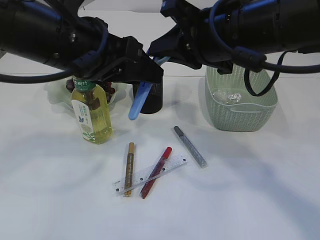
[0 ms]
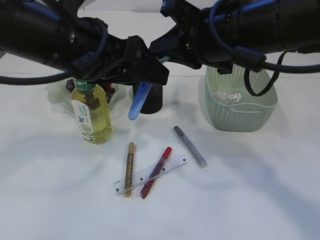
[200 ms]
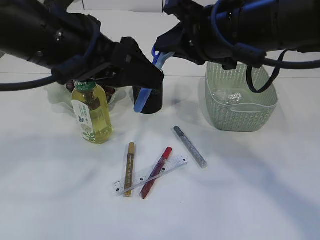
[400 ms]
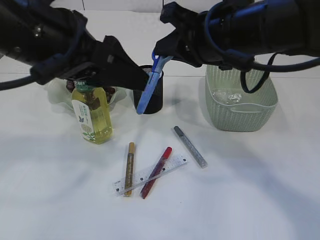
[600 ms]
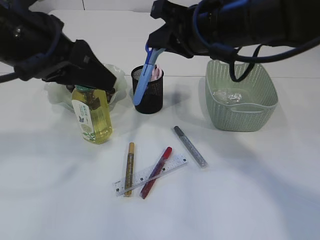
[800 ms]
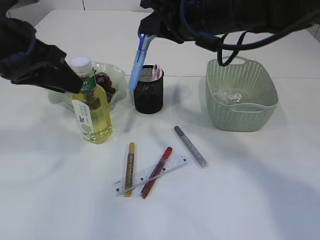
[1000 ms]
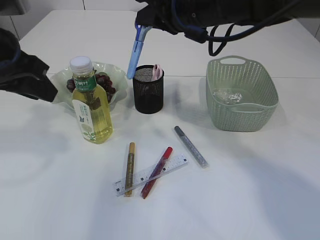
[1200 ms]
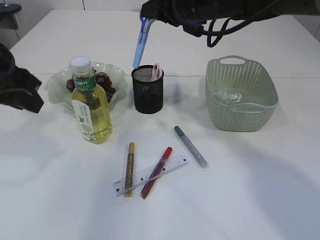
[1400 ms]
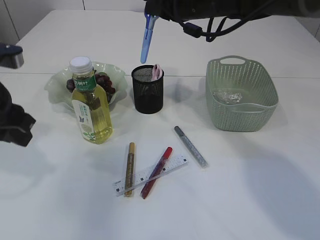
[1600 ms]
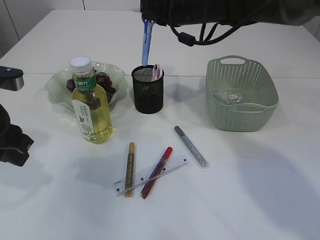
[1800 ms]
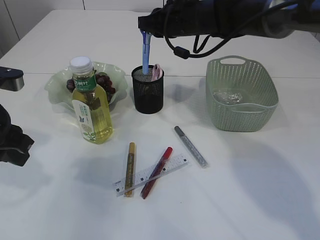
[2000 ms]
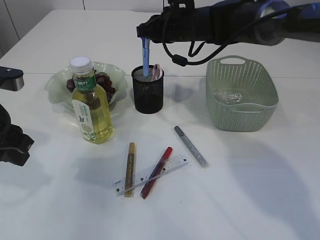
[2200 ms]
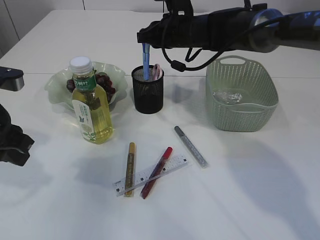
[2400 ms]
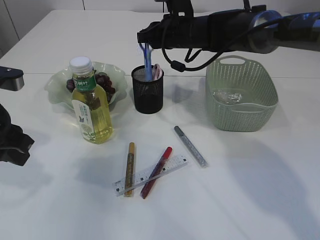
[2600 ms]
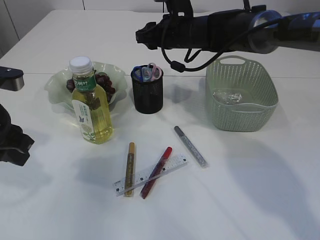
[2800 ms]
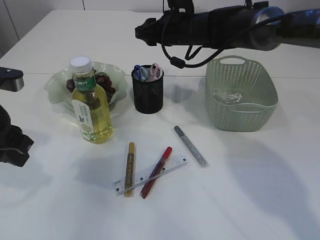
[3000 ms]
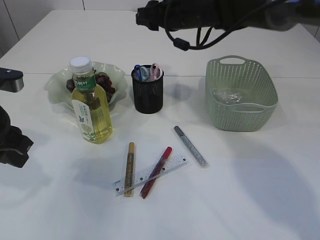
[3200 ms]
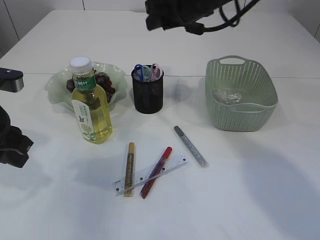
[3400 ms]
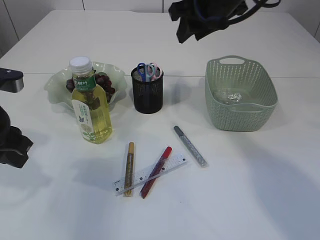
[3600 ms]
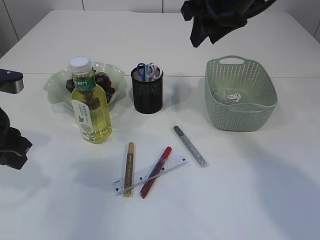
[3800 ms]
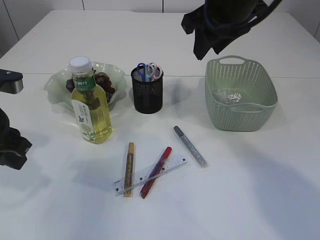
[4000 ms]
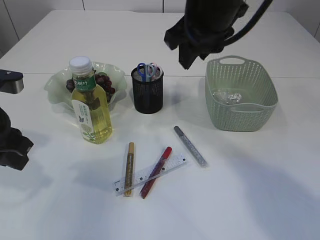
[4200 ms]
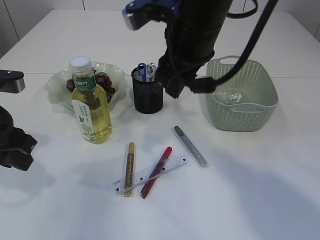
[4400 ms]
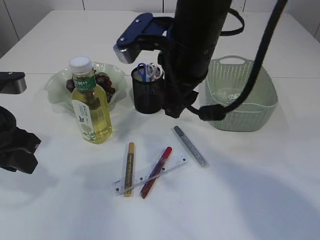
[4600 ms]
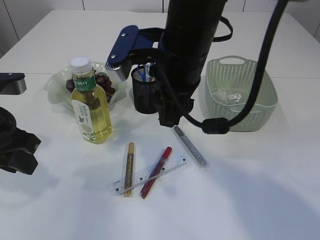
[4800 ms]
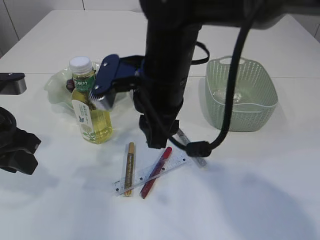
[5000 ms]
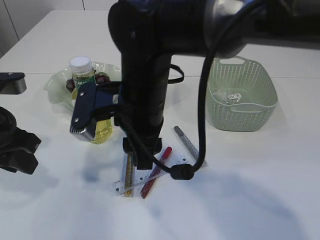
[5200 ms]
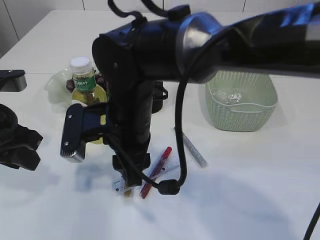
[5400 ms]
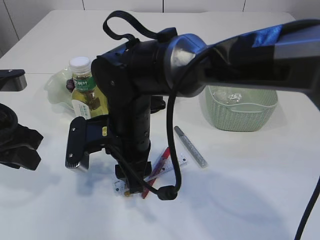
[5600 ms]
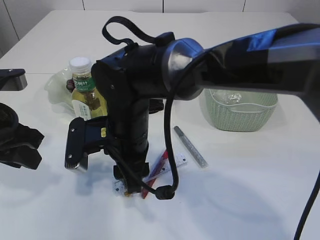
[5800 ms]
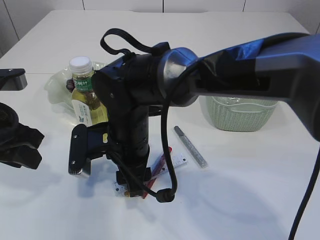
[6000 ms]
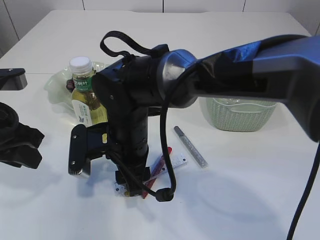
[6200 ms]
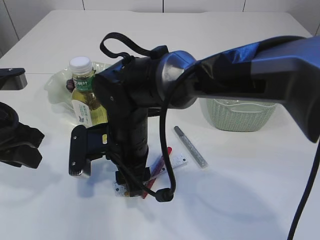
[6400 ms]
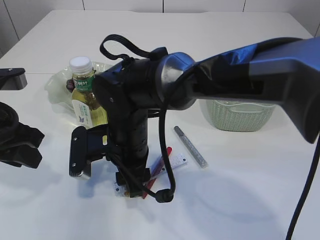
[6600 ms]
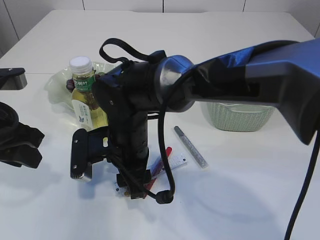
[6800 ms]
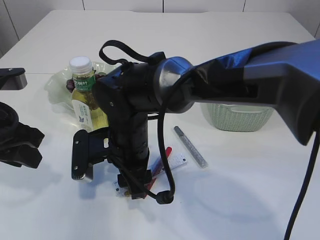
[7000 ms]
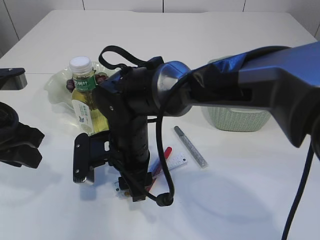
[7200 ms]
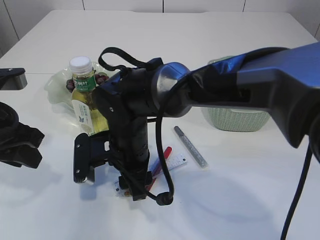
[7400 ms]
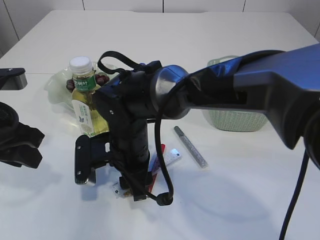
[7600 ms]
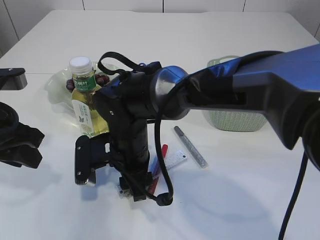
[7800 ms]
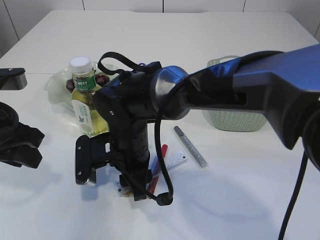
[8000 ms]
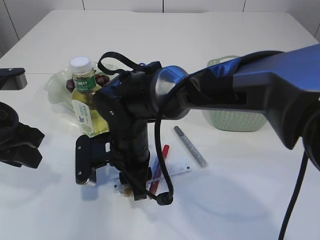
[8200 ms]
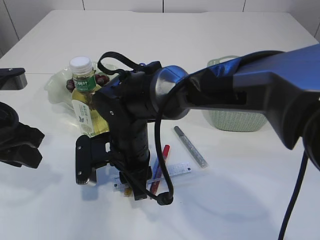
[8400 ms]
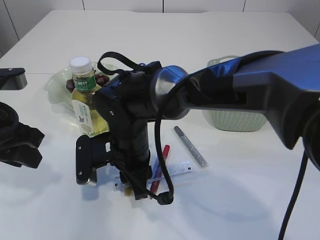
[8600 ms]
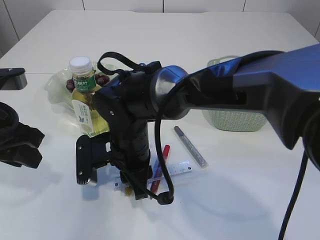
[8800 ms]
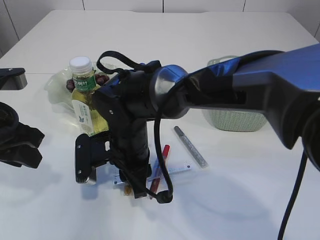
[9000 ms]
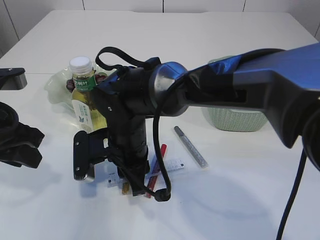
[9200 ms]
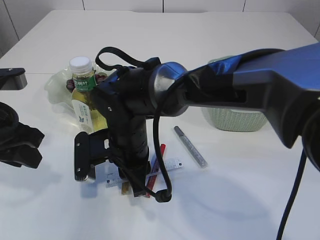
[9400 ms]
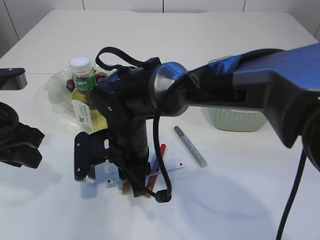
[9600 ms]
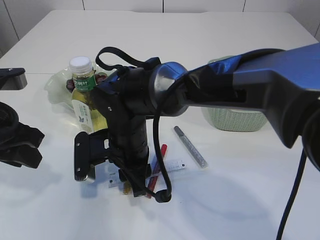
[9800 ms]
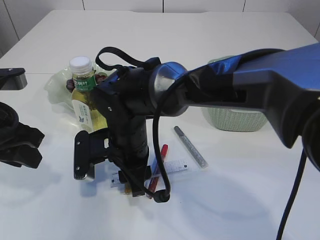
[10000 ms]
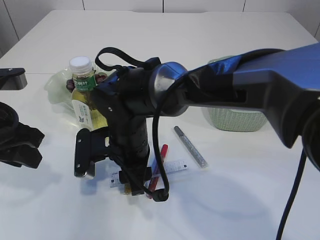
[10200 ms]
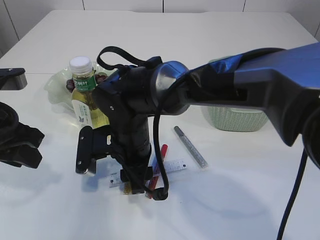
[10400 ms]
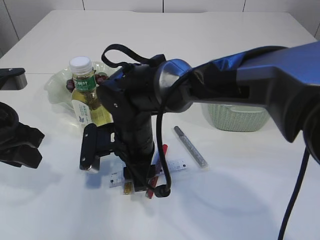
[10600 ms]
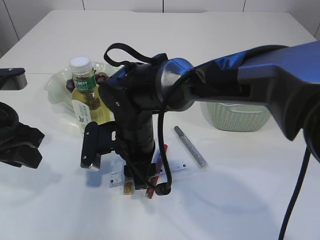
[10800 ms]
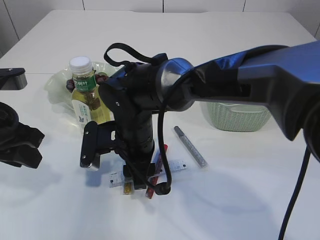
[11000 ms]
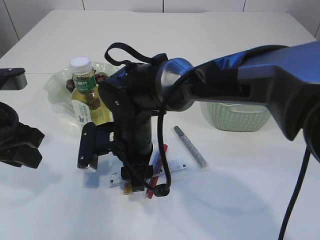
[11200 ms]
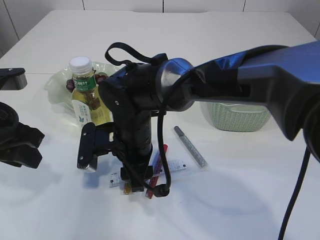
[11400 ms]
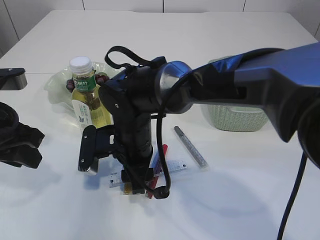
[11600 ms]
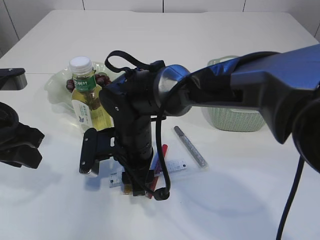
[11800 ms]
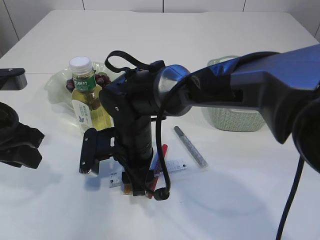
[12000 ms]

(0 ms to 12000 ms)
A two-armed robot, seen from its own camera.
Step, 800 ms - 3200 ms: Place the blue scissors into the pen holder.
0 ms - 1600 ms: The right gripper is displaced forward by about 15 cm; the left gripper moves to the left, some 15 cm, and opens and closes again.
1600 ms - 3000 ms: The right gripper heads downward and forward, covering approximately 10 cm, and opens up.
3000 ms - 4400 ms: The right gripper is displaced backward and upward by approximately 20 cm.
4400 ms - 6000 ms: The right gripper goes roughly 20 cm downward and to the left.
7600 ms - 9000 ms: Both grippers stay put.
9000 ms - 10400 ms: The grippers stay close to where they were, moving slightly.
10400 ms - 12000 ms: Neither gripper changes place.

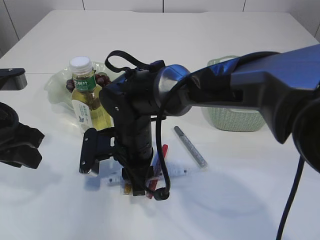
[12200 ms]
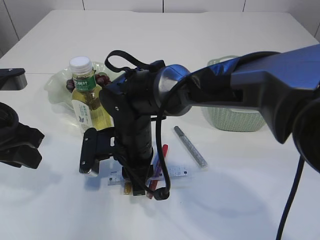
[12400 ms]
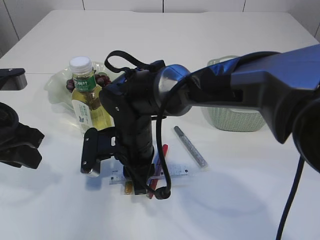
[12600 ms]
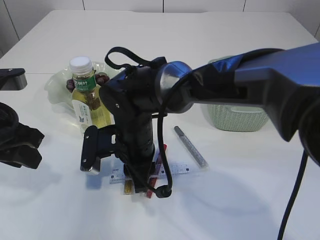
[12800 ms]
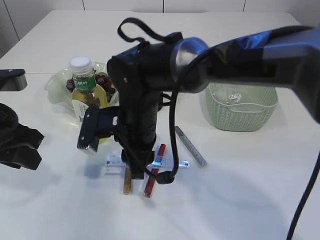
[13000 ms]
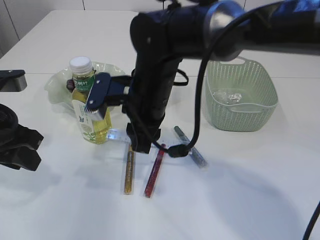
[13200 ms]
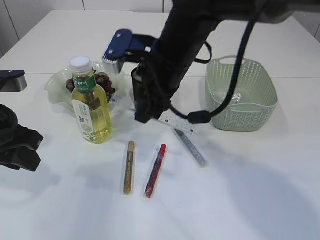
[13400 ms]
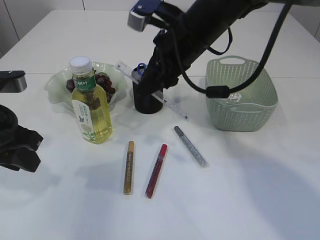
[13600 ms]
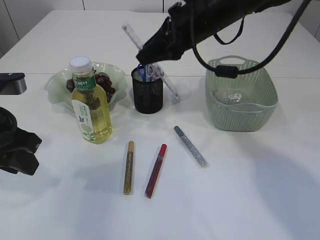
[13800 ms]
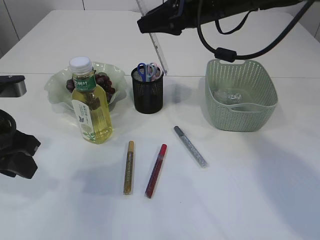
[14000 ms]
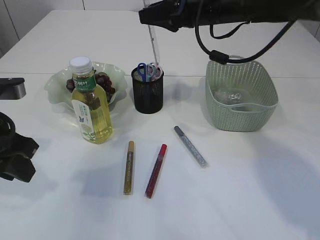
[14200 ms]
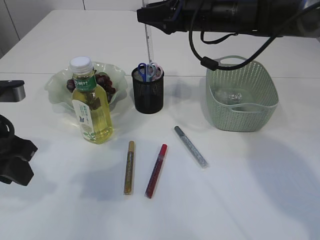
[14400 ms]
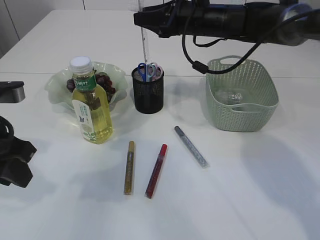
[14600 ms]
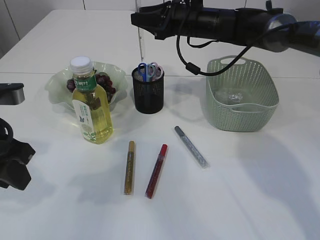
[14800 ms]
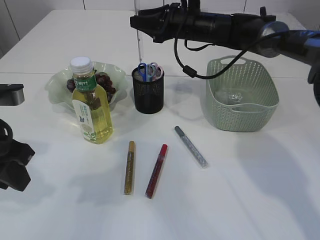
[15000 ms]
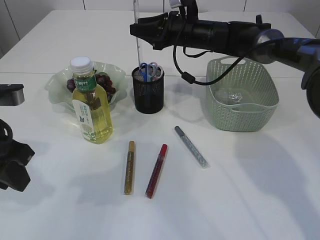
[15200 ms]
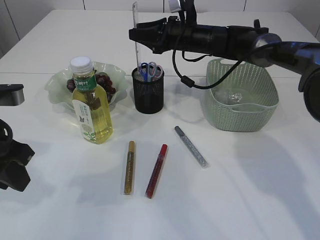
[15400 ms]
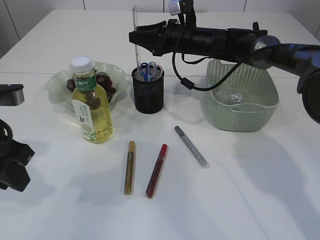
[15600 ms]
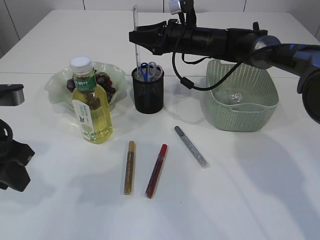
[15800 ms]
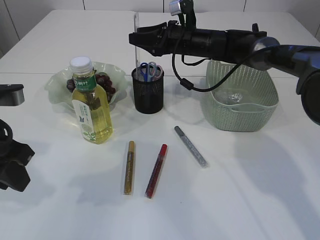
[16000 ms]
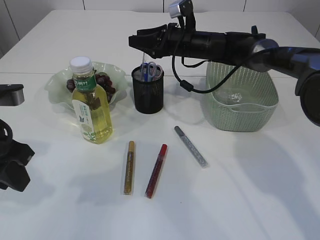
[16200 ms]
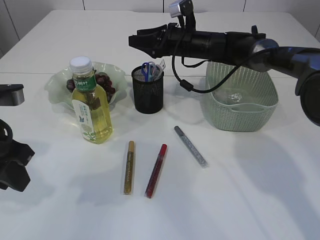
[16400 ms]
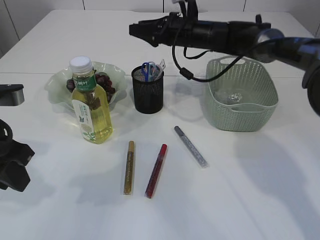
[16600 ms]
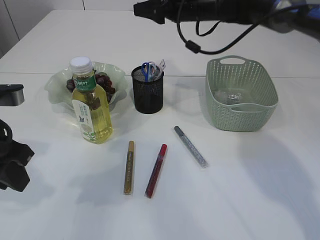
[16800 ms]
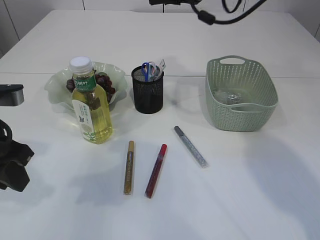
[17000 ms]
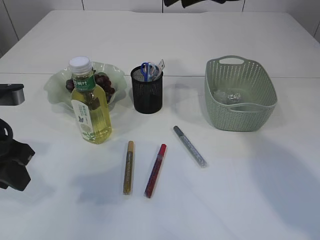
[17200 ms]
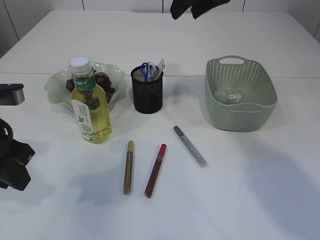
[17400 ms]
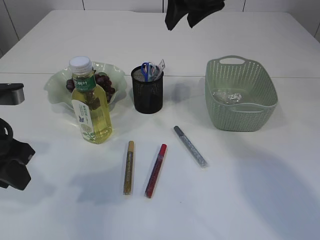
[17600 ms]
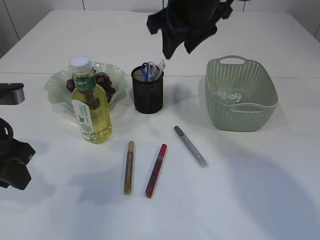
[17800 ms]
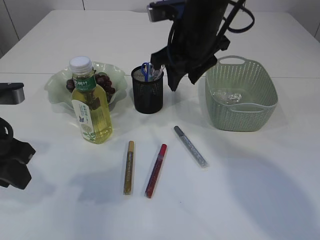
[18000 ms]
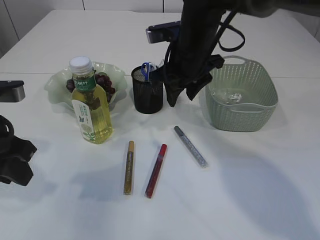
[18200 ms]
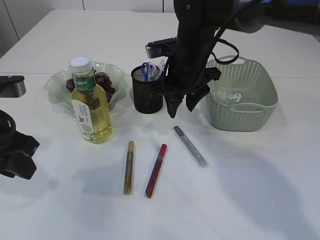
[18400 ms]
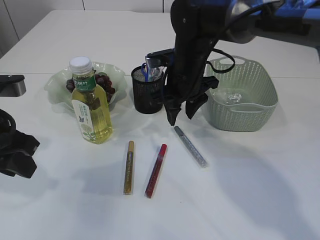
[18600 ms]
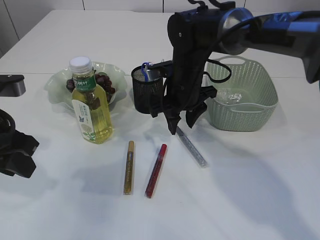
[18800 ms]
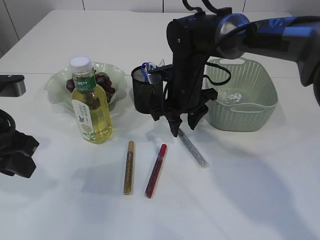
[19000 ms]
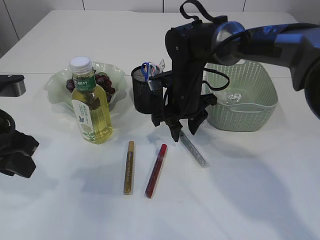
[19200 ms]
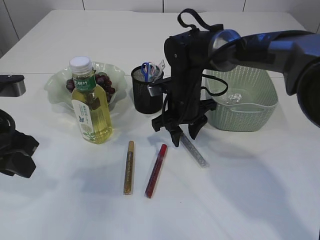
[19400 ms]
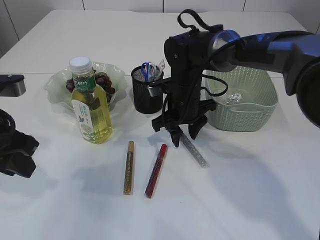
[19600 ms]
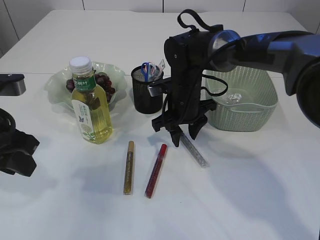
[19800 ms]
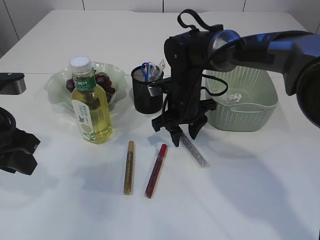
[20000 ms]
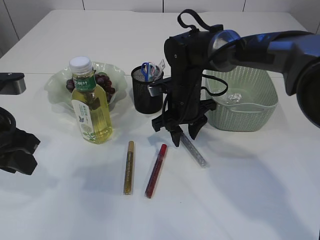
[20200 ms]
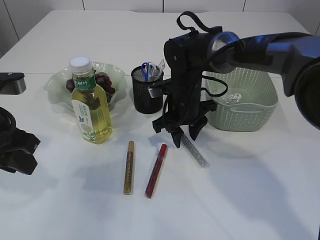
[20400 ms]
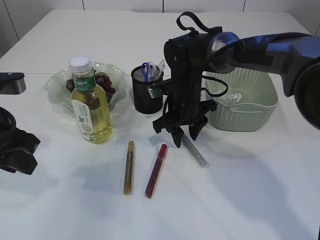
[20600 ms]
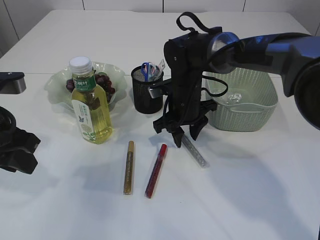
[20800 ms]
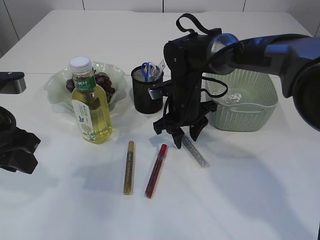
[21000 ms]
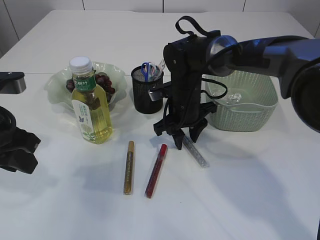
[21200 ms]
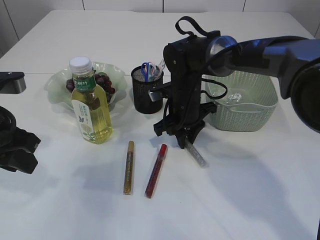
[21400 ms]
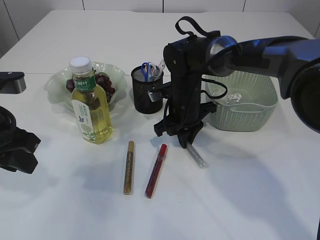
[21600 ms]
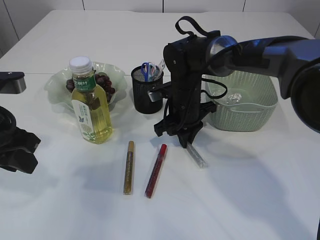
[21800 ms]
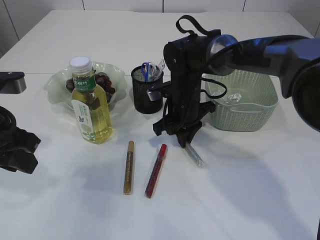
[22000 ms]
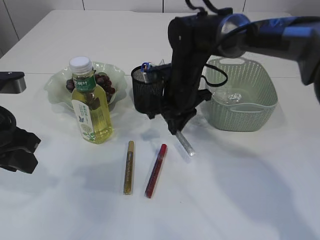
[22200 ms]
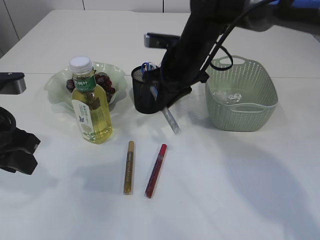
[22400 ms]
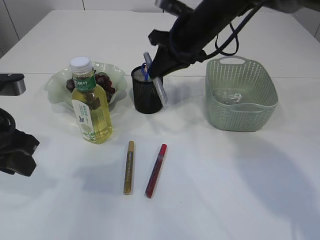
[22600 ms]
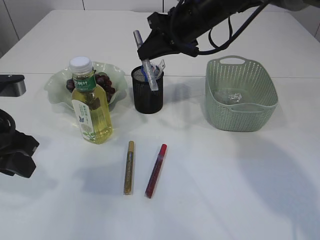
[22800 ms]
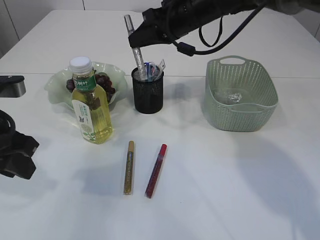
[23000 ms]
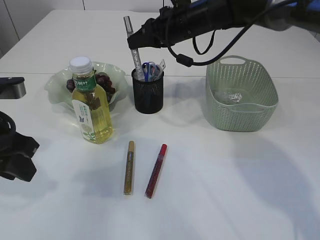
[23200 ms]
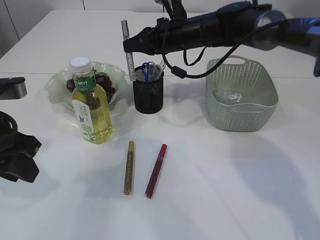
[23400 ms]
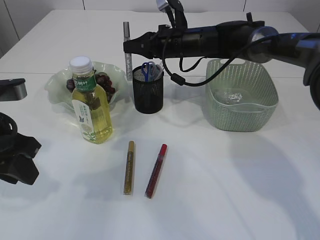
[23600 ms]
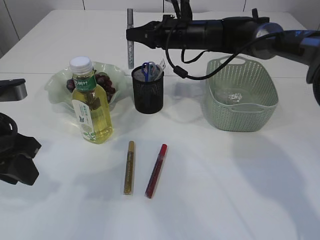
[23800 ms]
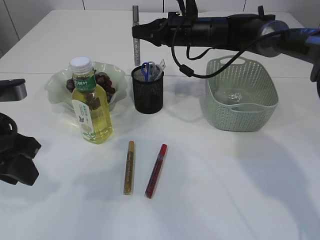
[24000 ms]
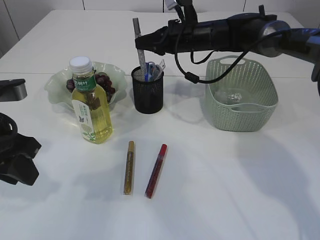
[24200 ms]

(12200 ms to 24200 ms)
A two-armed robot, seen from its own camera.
Step, 13400 ms - 16600 ms: Place the ruler into the pen holder.
Step, 16800 ms - 22200 ms: pick up the silver glue.
12200 ms - 13800 ms: The right gripper shifts approximately 20 cm upward and to the right.
13800 ms - 15200 ms: The right gripper heads forward and downward, covering roughly 15 cm.
15200 ms - 16600 ms: The grippers stay close to where they were, moving slightly.
16600 ms - 18200 ms: The right gripper is displaced backward by some 15 cm, and reaches approximately 15 cm upward, then returns.
18200 ms - 19800 ms: The right gripper shifts approximately 10 cm downward.
19800 ms - 21200 ms: Both grippers stay put.
21200 ms - 22600 ms: The right gripper travels upward by about 15 cm, and closes its fingers.
22600 ms - 24200 ms: The right gripper heads forward, covering approximately 10 cm.
